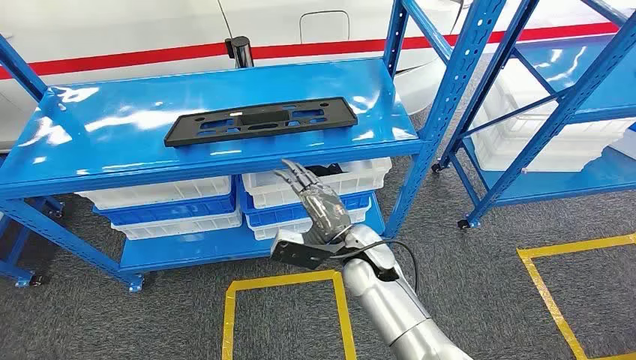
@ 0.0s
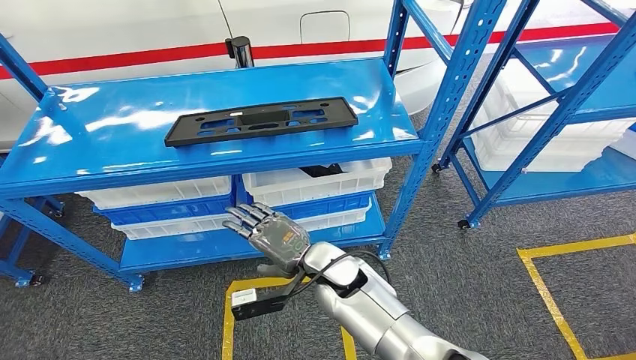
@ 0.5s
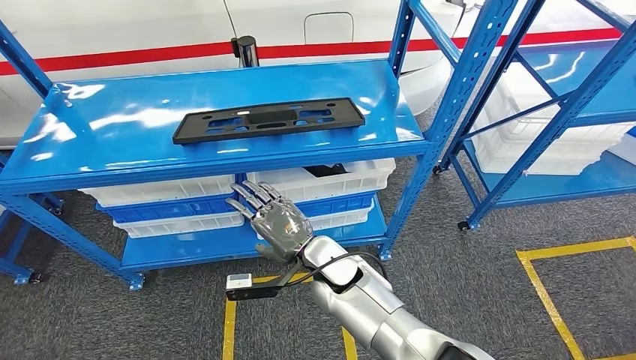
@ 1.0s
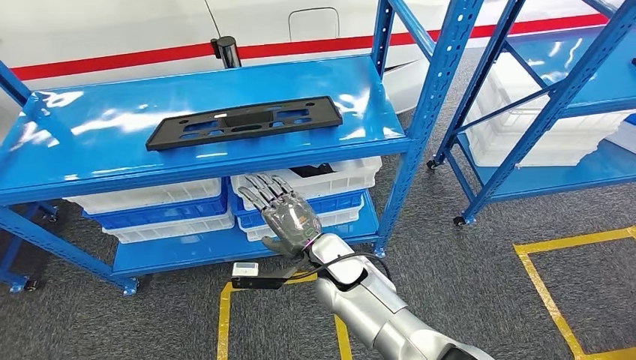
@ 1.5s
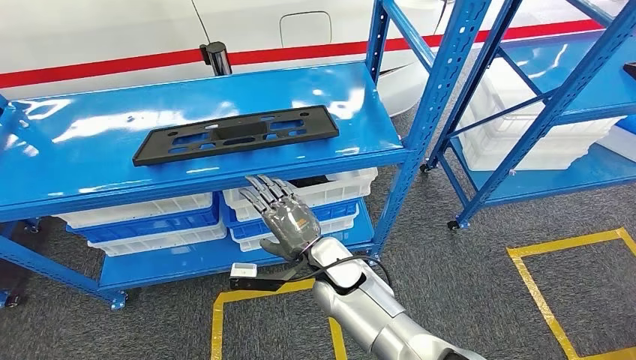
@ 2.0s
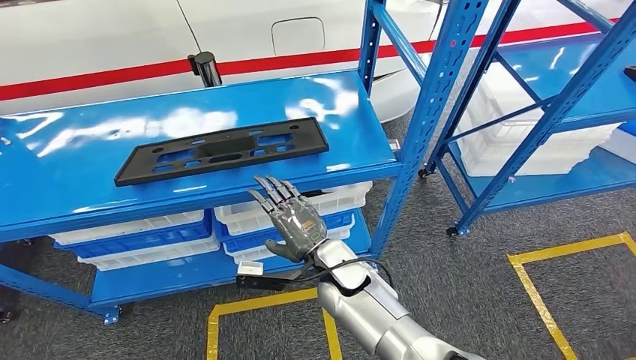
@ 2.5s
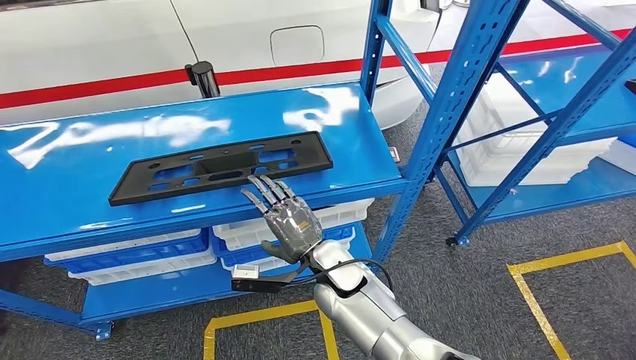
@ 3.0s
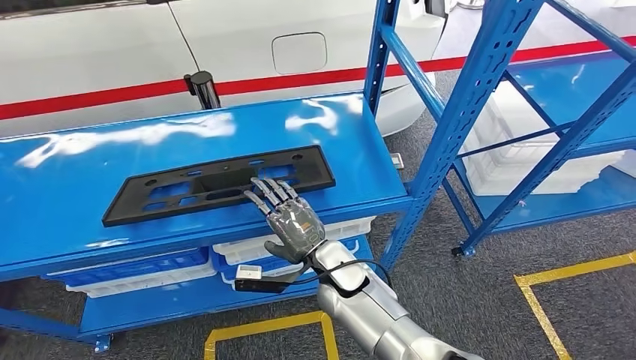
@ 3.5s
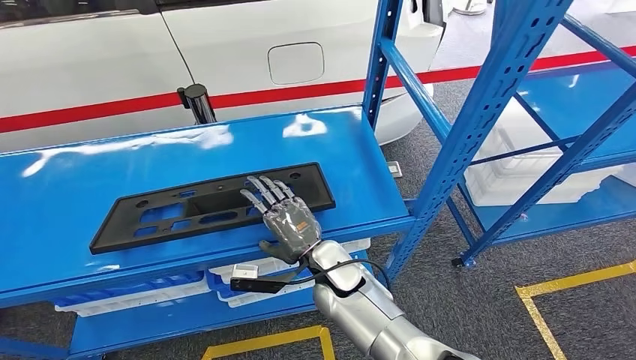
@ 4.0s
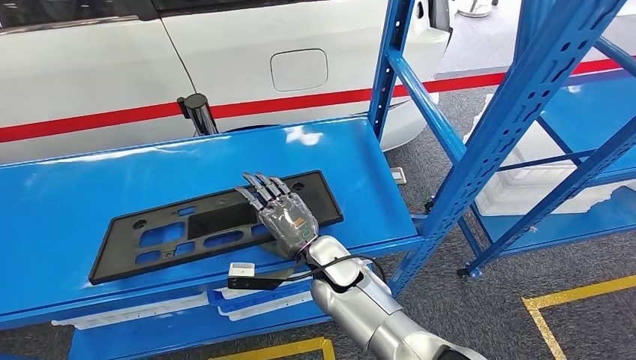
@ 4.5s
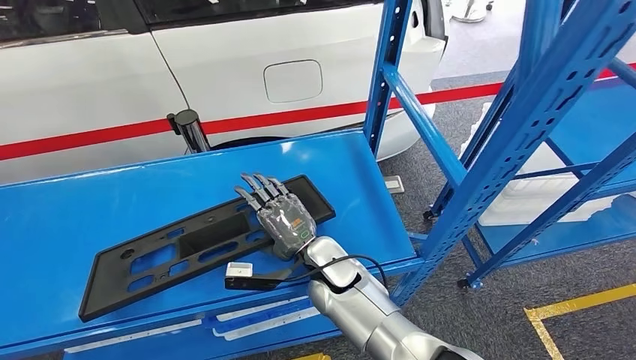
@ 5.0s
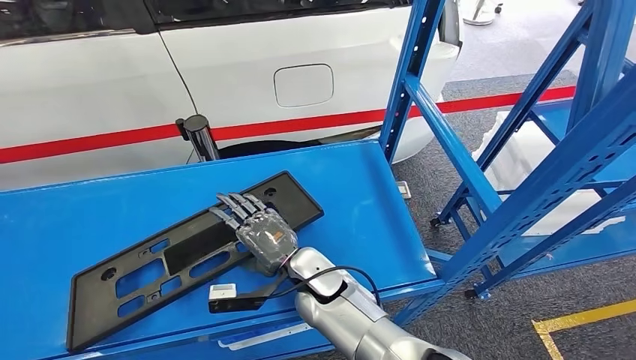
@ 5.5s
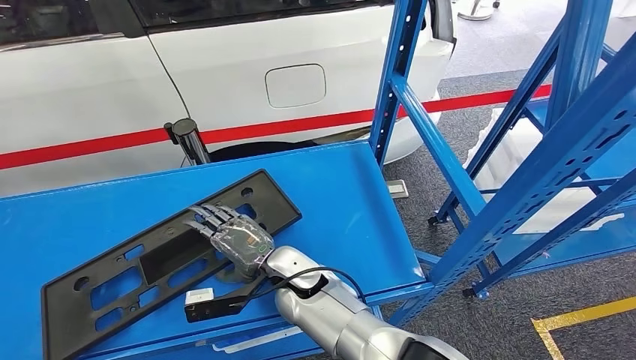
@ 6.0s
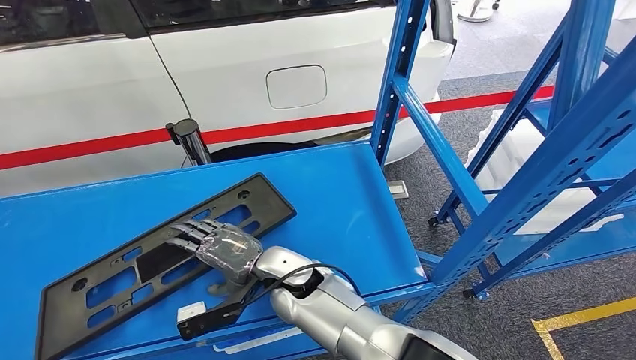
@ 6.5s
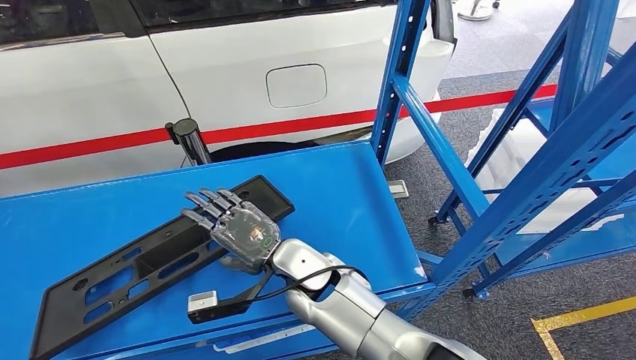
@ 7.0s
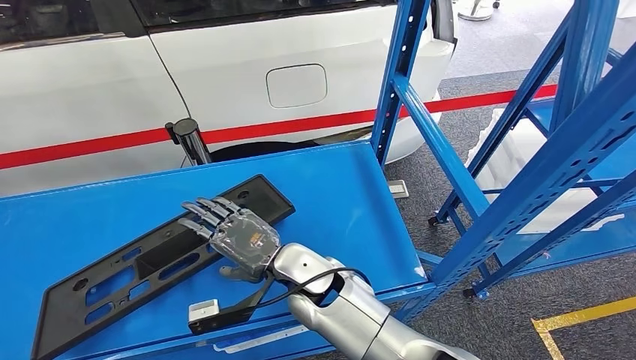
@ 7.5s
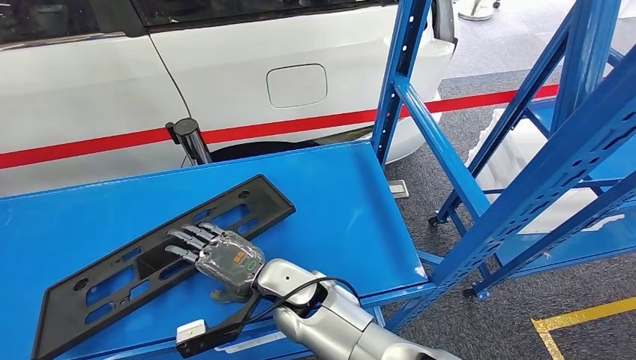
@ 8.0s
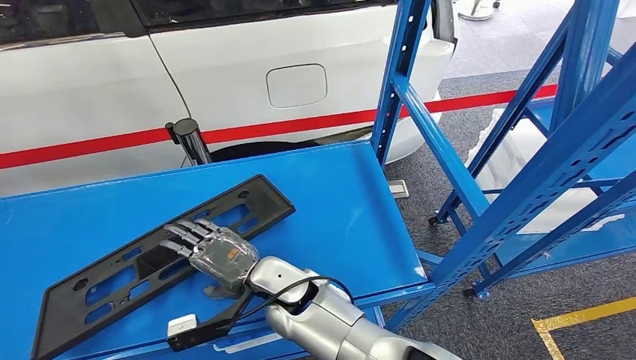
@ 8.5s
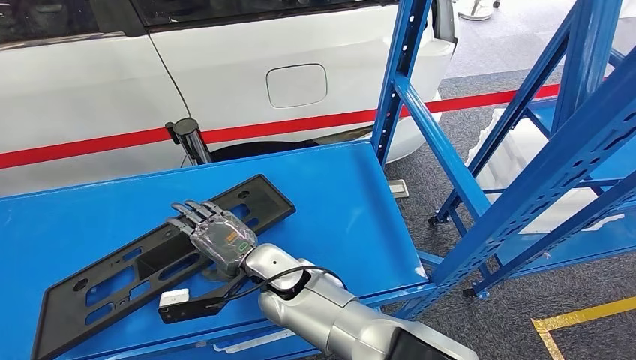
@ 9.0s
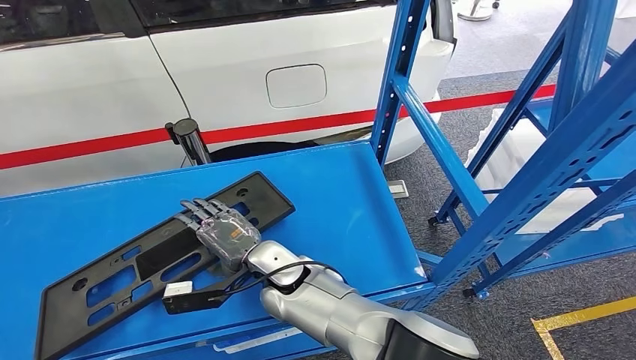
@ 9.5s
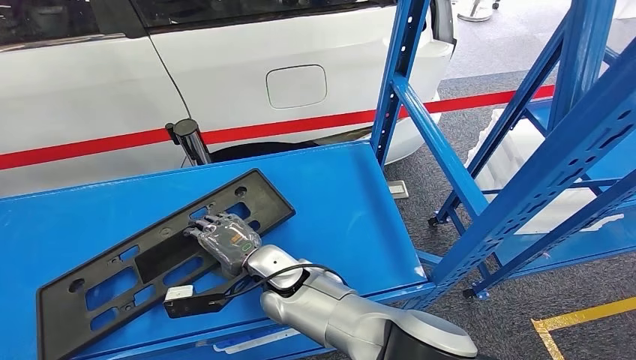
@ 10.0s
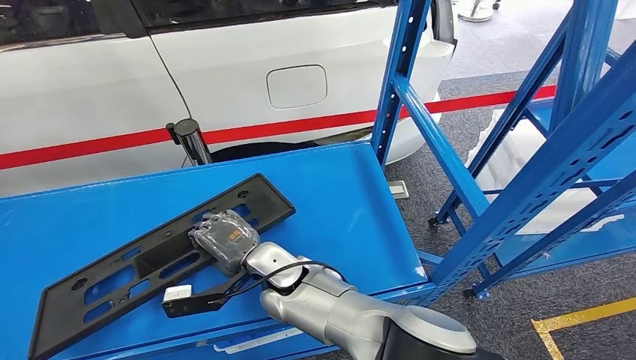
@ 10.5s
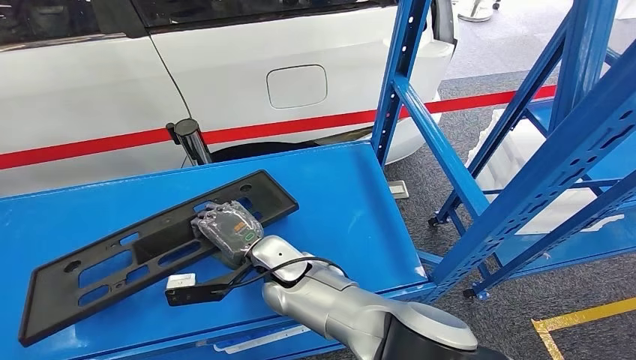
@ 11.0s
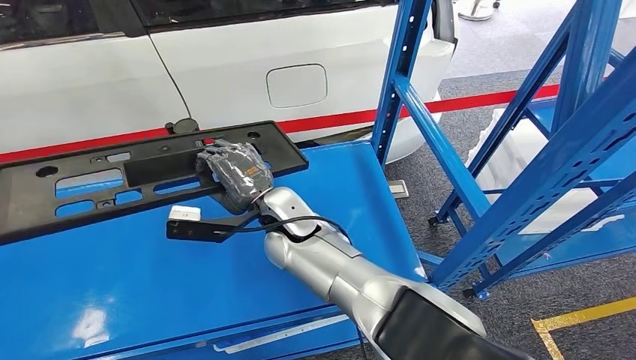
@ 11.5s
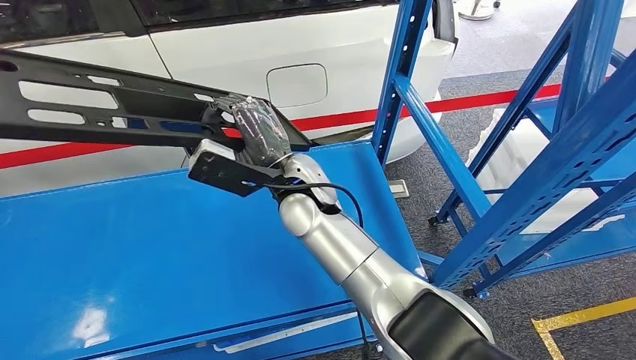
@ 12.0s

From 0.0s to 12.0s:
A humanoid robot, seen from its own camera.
From 6.0s to 10.0s: The hands stay close to where they were, moving slightly.

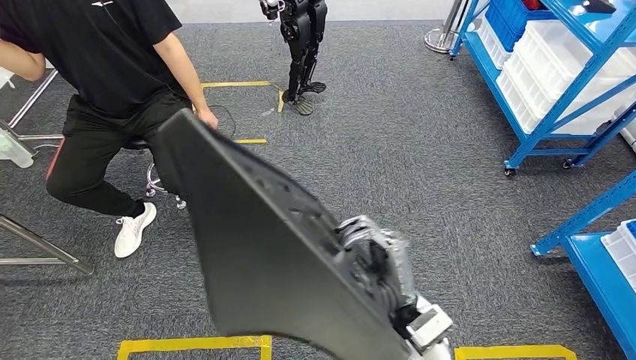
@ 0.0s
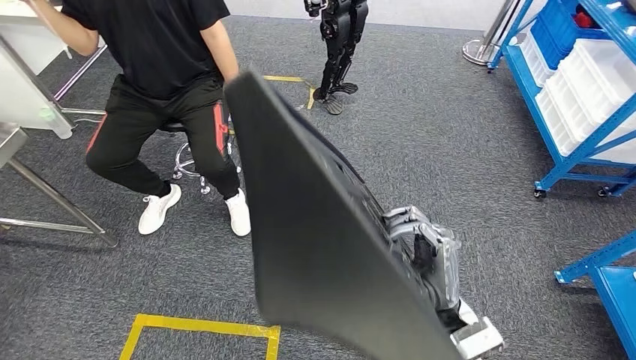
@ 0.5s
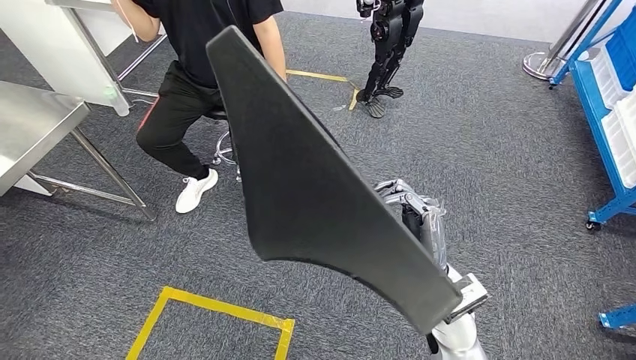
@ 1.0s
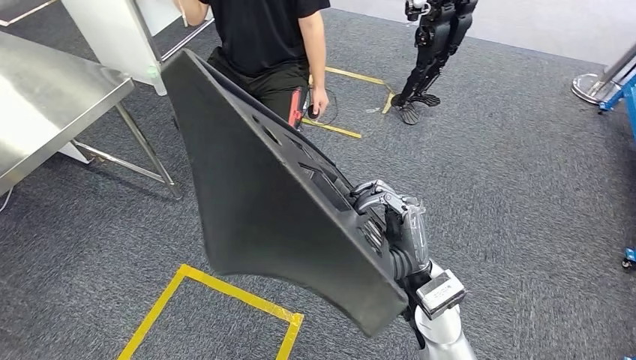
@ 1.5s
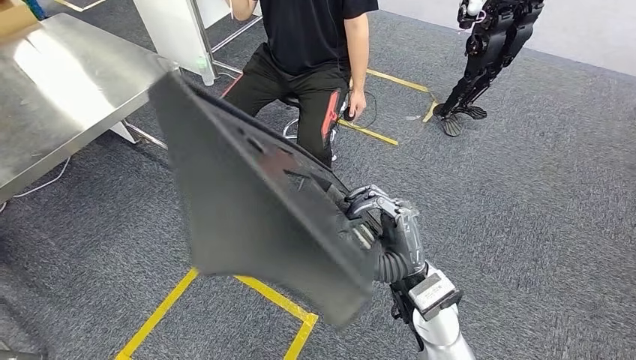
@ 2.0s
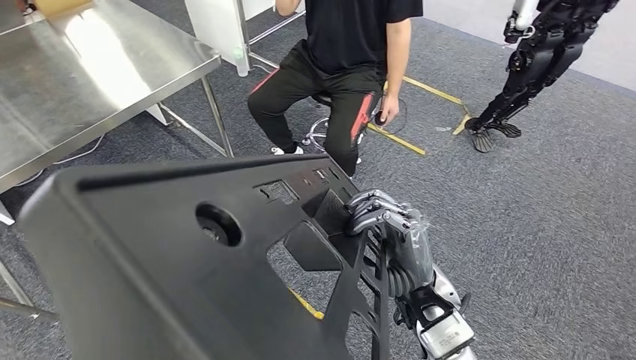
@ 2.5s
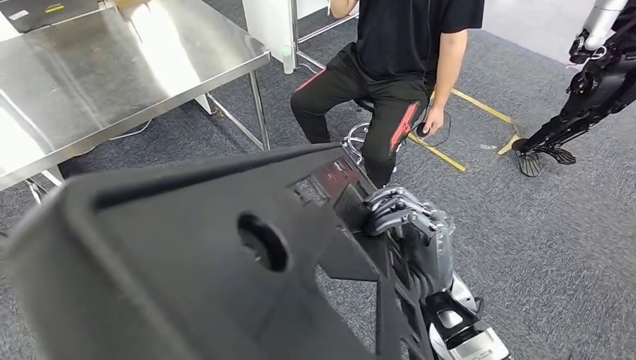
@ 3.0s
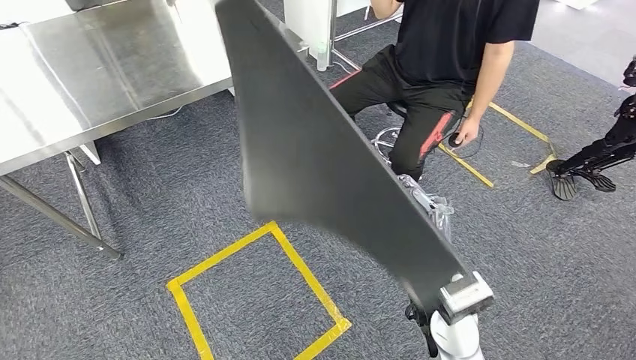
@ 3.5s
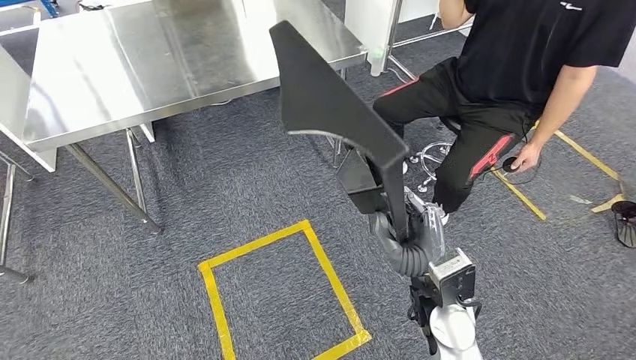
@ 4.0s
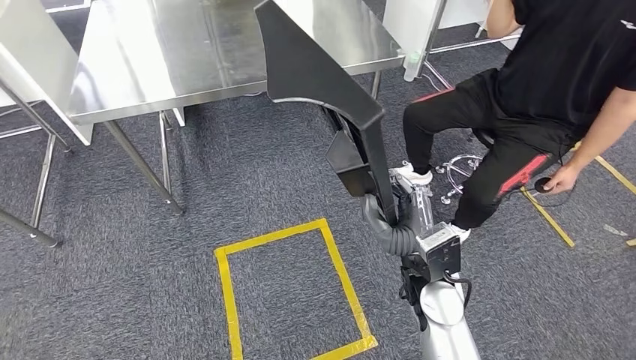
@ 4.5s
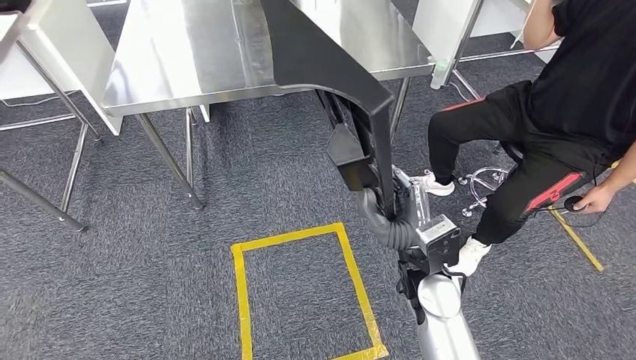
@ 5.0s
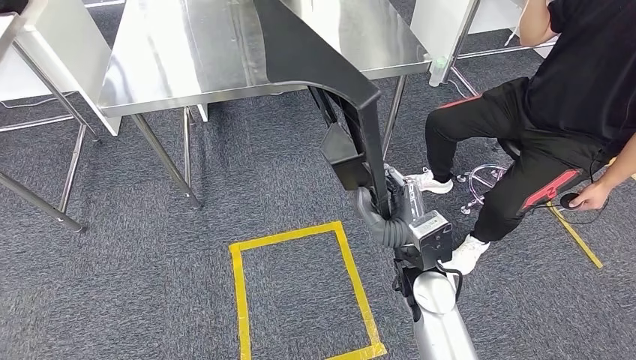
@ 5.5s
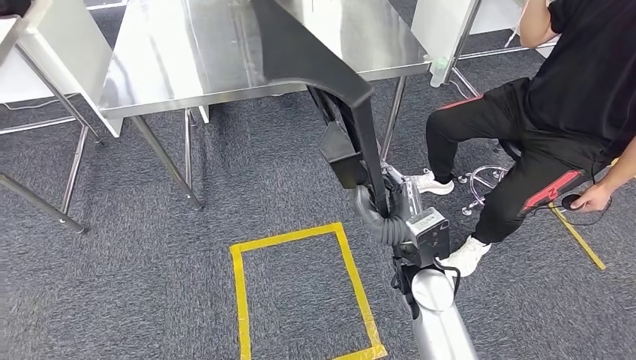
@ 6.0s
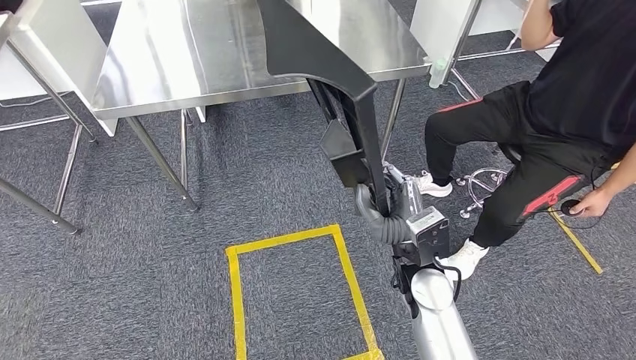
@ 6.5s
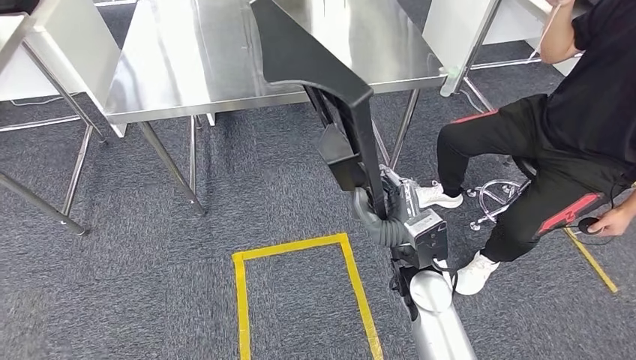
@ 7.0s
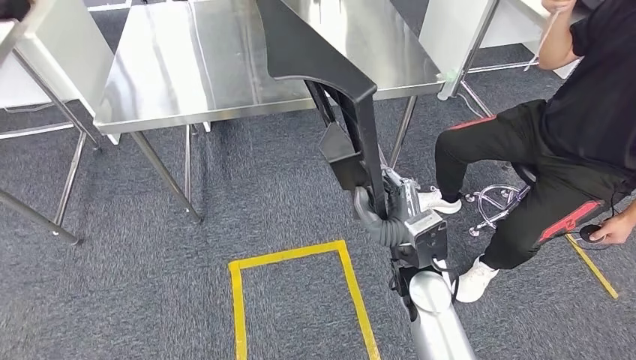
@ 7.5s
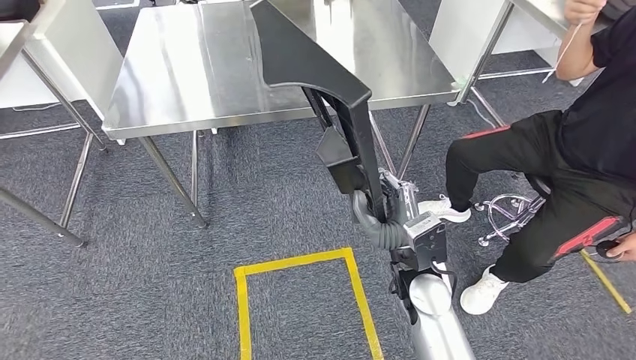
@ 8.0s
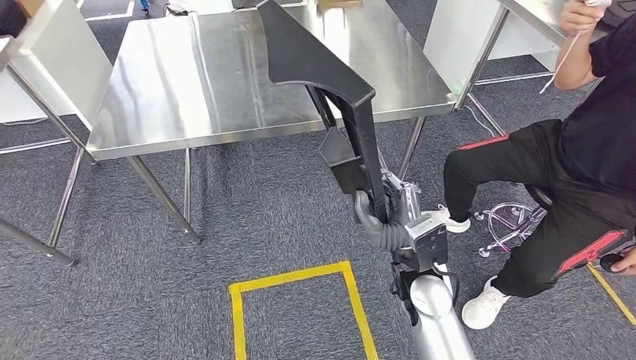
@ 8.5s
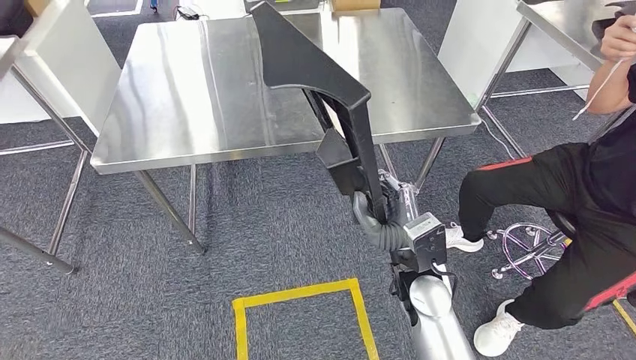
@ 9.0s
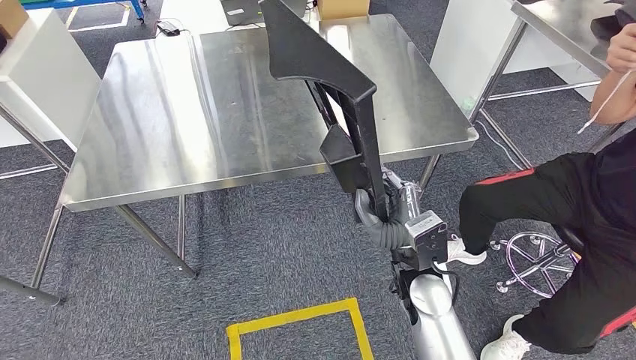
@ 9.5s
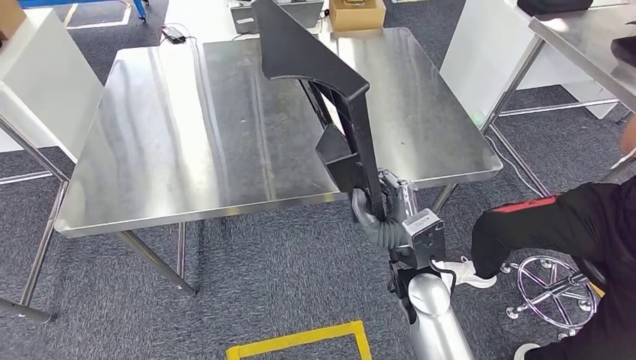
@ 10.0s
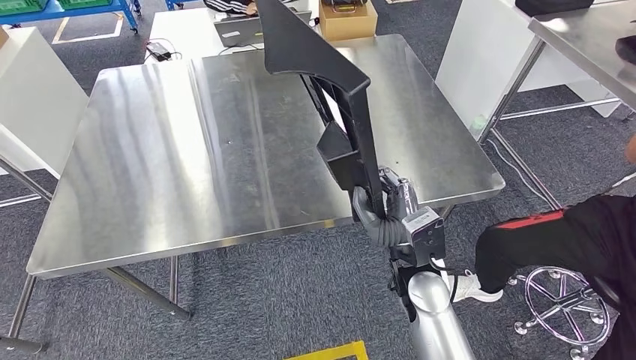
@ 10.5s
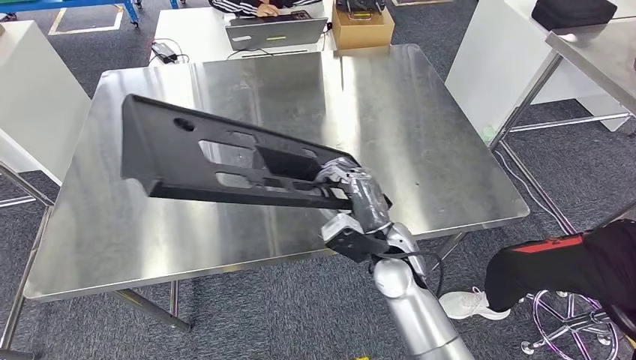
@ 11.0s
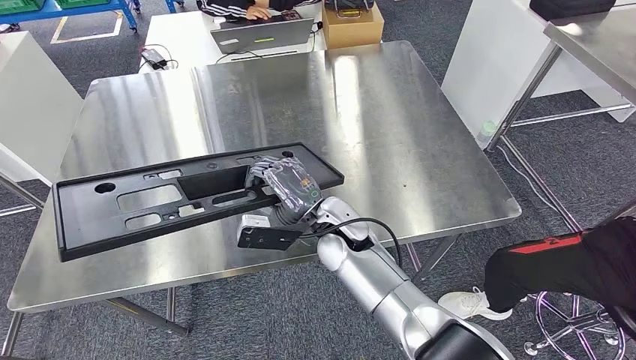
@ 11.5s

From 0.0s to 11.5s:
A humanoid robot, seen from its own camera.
Step, from 0.0s to 9.0s: Move the large material to the workbench.
